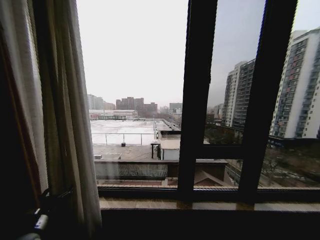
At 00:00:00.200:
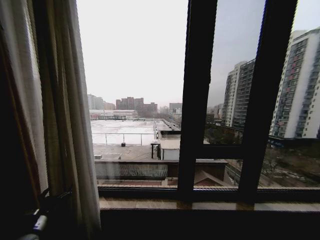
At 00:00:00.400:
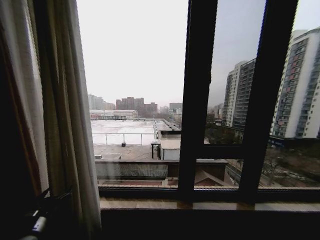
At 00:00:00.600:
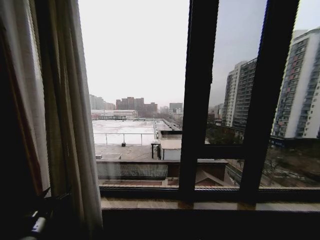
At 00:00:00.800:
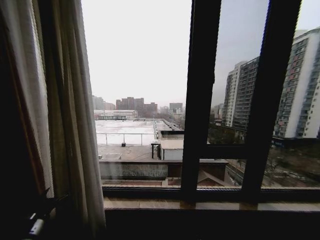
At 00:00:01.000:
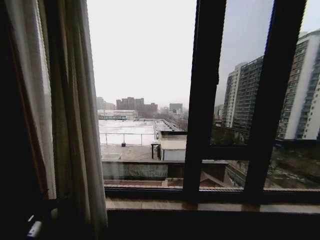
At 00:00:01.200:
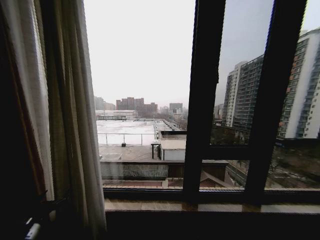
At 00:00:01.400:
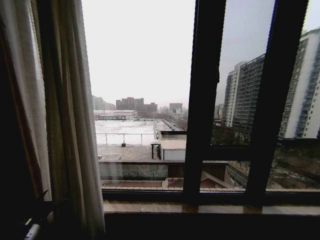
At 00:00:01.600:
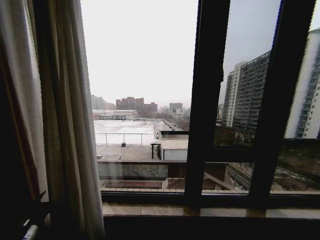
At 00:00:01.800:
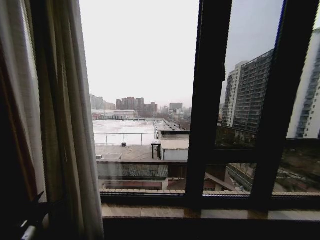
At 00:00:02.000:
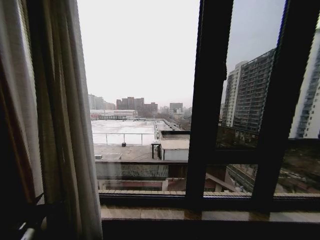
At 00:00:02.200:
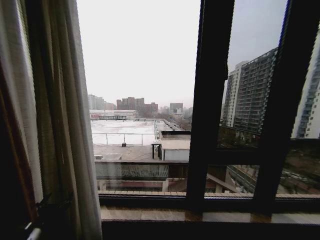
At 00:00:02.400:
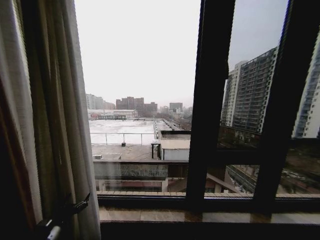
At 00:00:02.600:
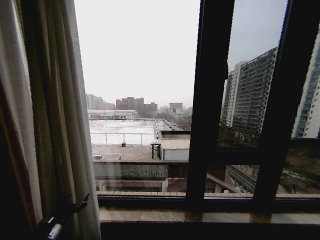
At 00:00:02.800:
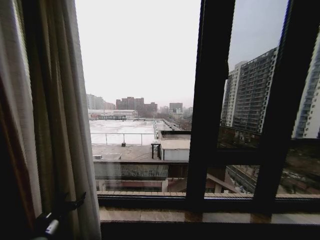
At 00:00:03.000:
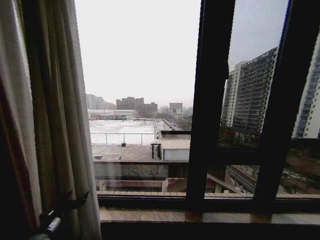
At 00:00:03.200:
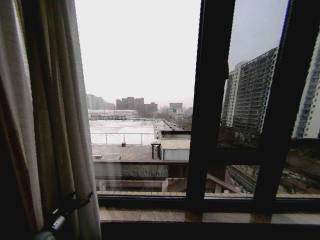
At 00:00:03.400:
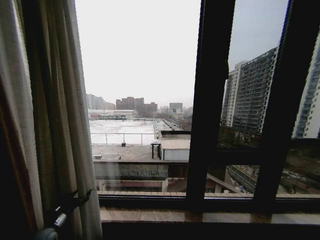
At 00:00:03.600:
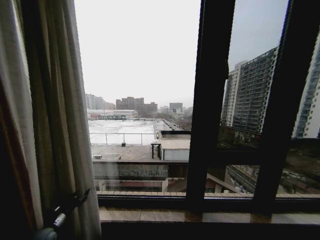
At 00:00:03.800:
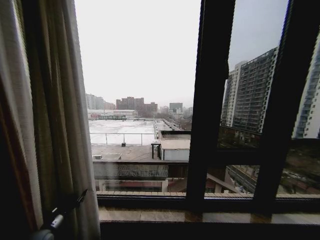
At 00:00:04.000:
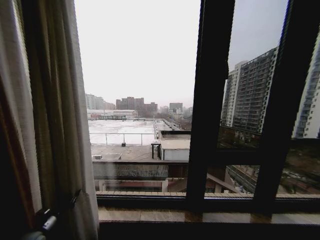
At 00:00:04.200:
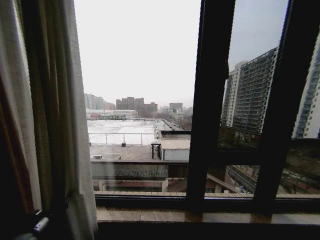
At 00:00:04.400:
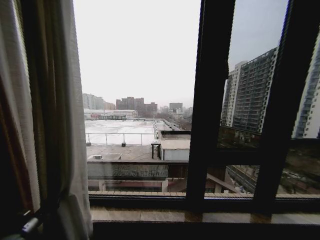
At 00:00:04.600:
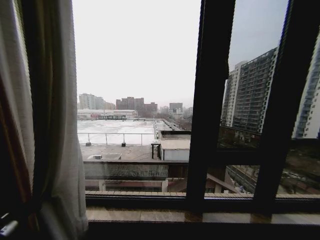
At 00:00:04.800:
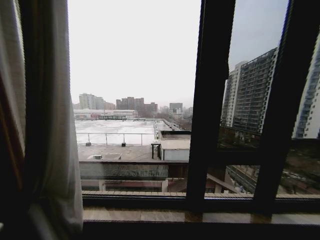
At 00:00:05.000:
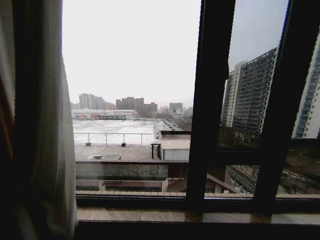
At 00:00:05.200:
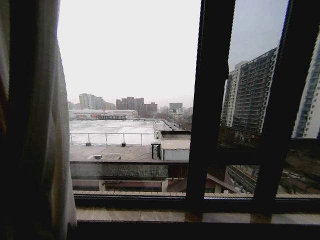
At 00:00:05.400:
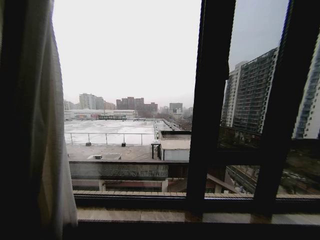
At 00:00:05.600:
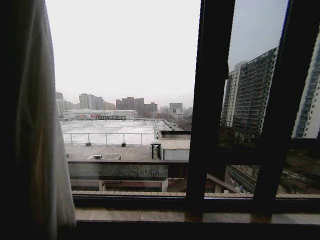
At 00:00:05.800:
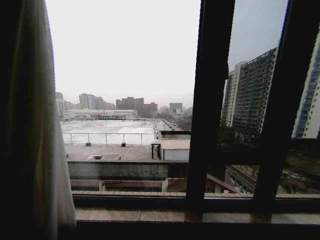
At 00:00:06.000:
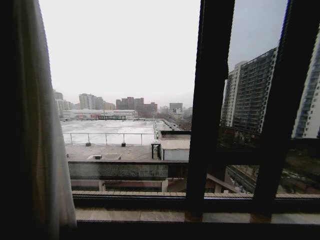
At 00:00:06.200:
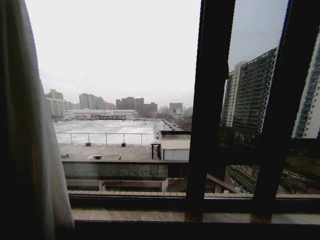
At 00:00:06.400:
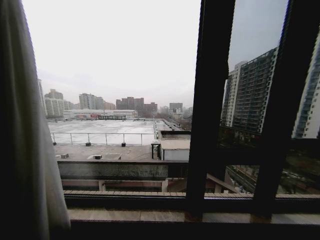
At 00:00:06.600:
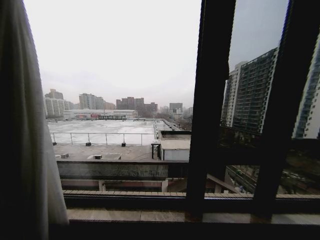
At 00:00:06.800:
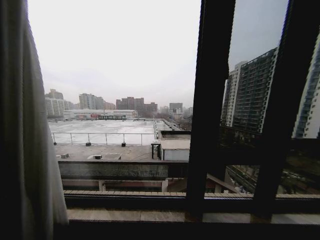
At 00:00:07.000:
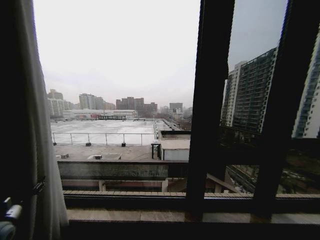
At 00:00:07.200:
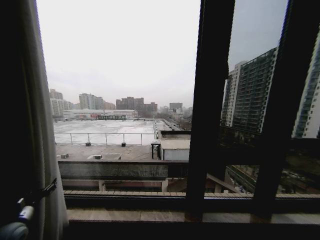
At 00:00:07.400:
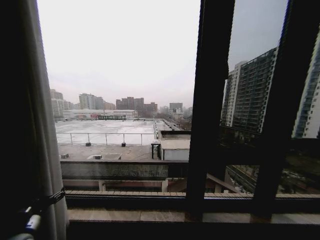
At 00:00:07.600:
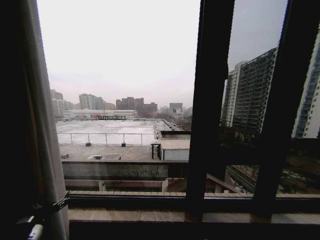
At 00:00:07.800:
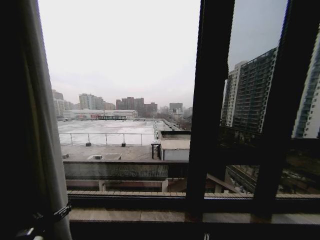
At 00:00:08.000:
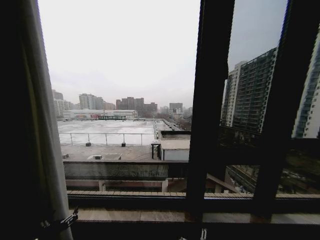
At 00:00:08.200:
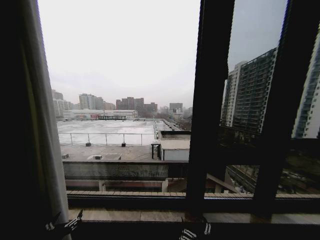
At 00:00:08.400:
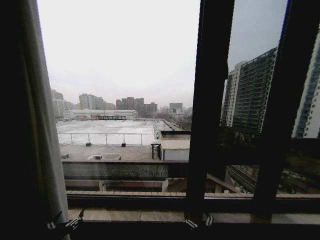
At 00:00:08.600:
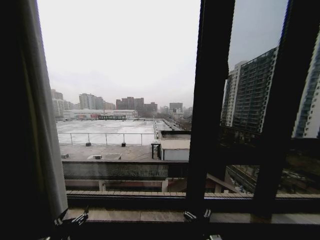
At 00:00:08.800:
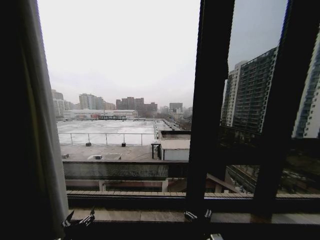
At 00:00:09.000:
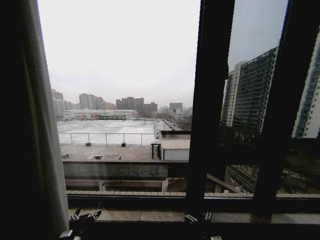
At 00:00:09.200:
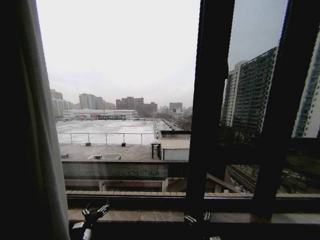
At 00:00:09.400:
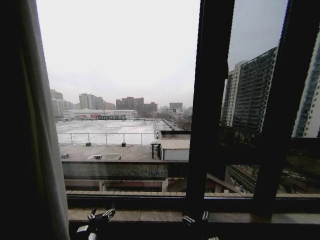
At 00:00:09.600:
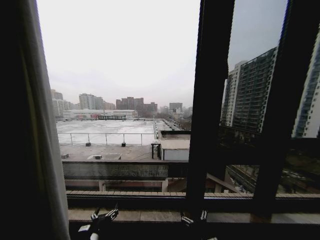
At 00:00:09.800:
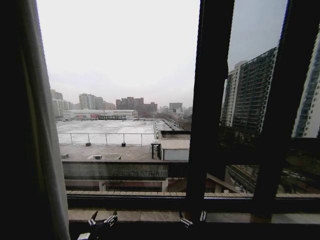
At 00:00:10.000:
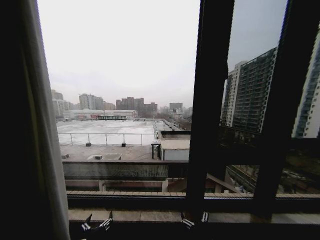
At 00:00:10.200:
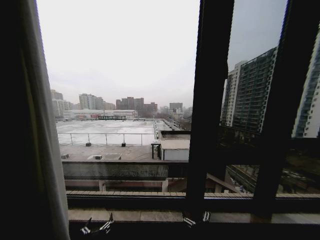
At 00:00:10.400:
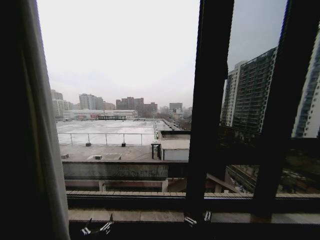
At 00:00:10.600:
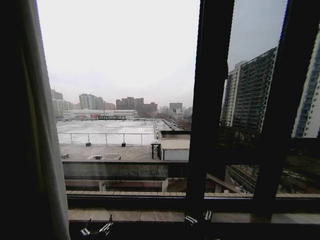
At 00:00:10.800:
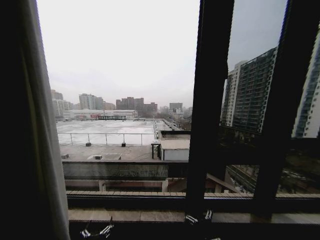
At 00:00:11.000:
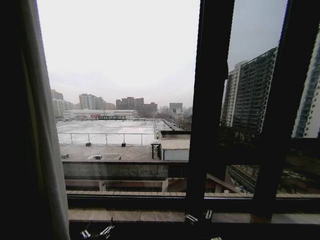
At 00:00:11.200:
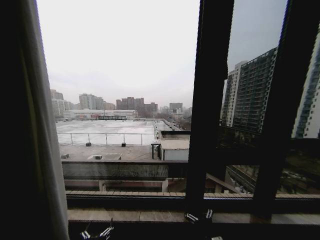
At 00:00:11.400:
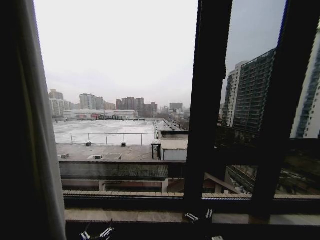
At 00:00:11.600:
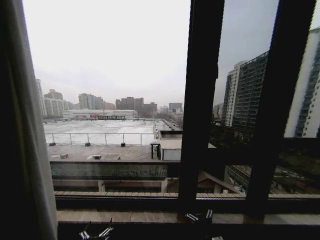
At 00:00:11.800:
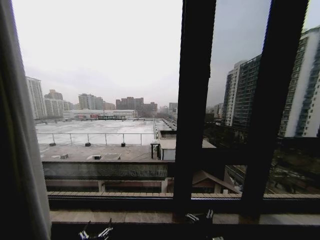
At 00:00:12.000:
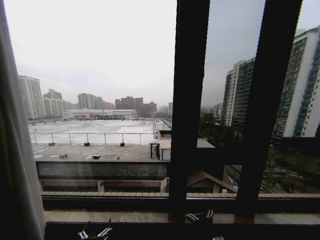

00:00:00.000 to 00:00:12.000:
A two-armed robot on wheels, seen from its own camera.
Task of the whole recording: Open the curtains by pulling them apart, changing their state from closed to fully open.
00:00:01.600 to 00:00:03.000: The left gripper is displaced forward by approximately 5 cm.
00:00:03.000 to 00:00:04.400: The left gripper shifts about 10 cm to the left, and closes its fingers.
00:00:04.400 to 00:00:06.000: The left gripper moves to the left, some 20 cm.
00:00:06.000 to 00:00:07.600: The left gripper shifts approximately 30 cm to the right, and opens its fingers.
00:00:07.600 to 00:00:09.000: The left gripper moves to the right and downward, approximately 15 cm.
00:00:09.000 to 00:00:10.400: The left gripper is displaced to the right and backward by some 10 cm.
